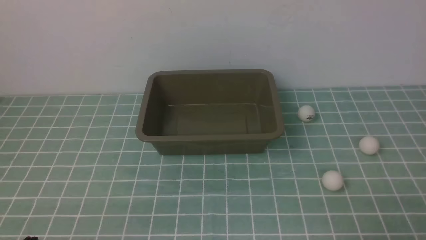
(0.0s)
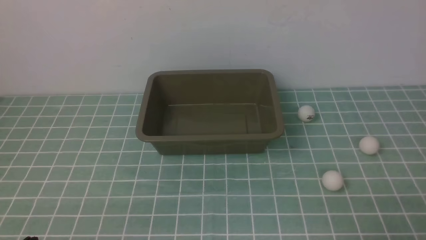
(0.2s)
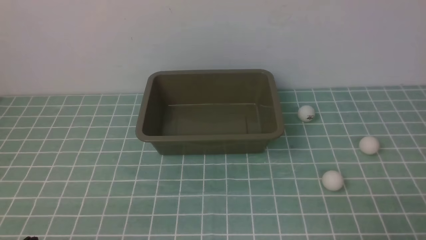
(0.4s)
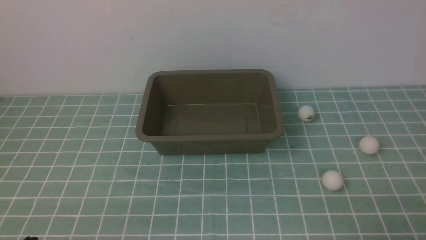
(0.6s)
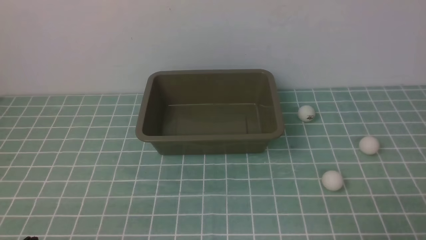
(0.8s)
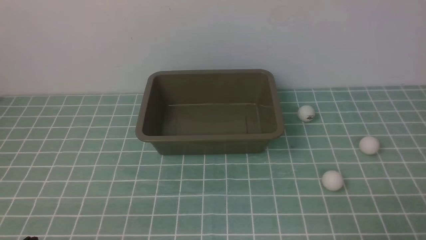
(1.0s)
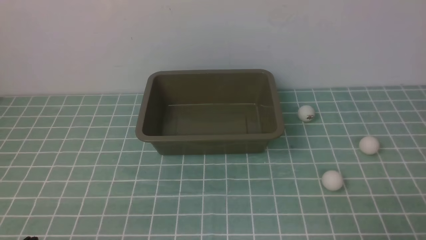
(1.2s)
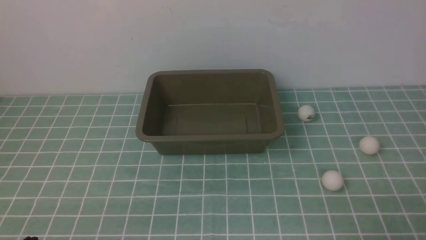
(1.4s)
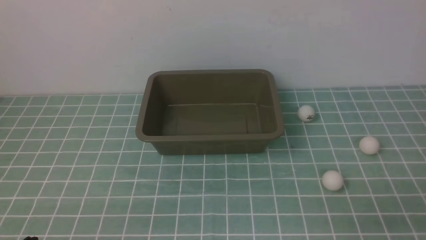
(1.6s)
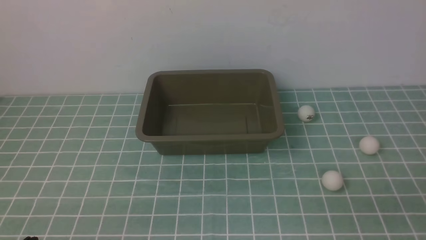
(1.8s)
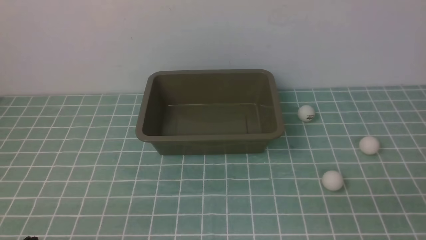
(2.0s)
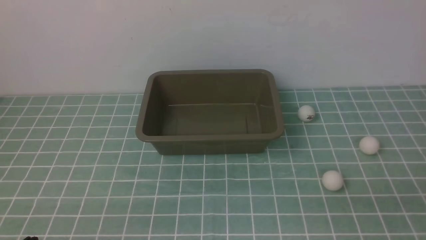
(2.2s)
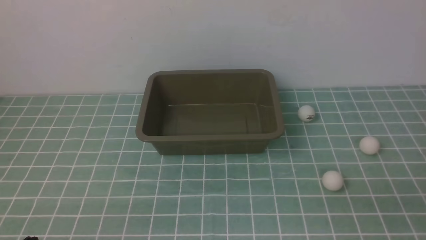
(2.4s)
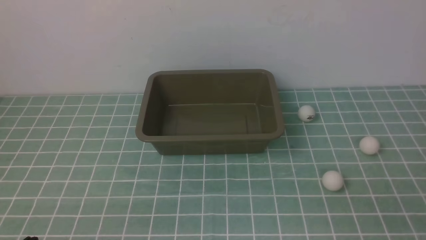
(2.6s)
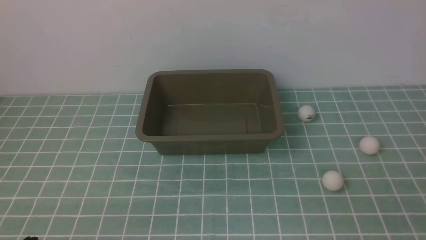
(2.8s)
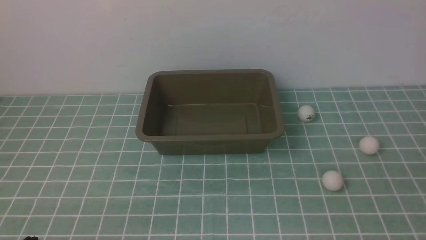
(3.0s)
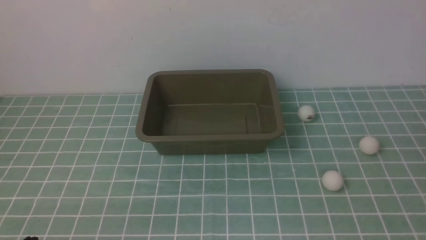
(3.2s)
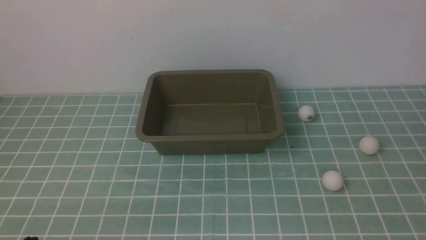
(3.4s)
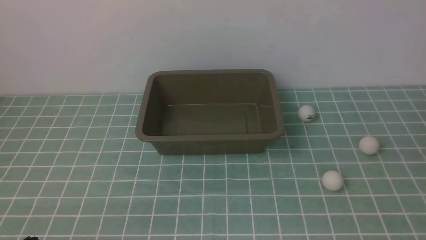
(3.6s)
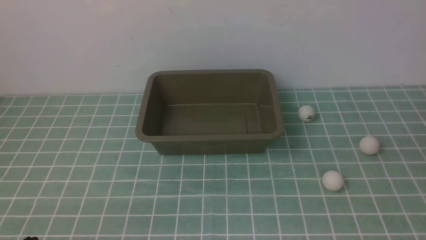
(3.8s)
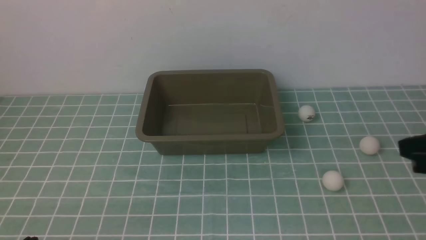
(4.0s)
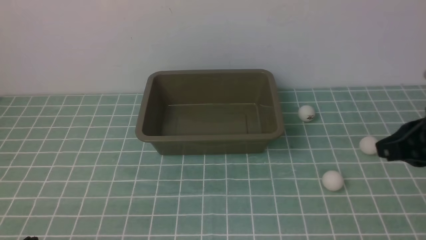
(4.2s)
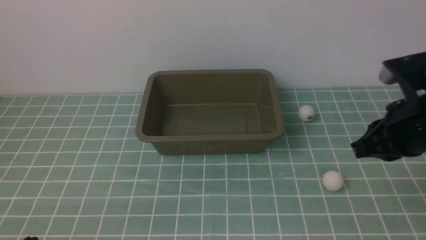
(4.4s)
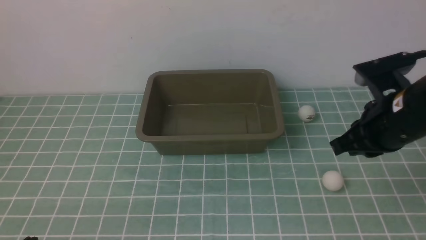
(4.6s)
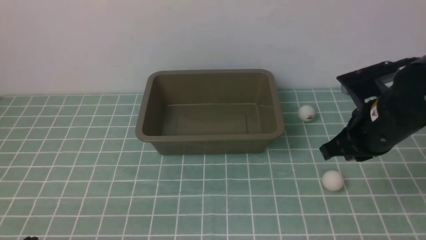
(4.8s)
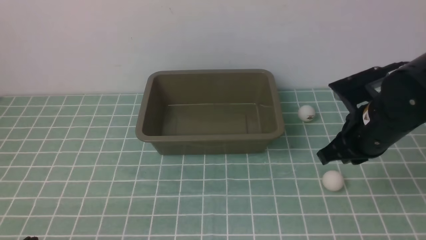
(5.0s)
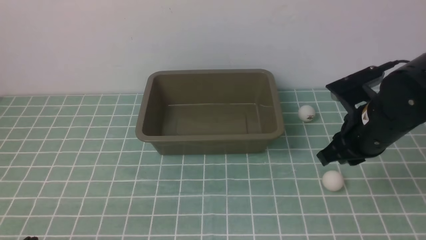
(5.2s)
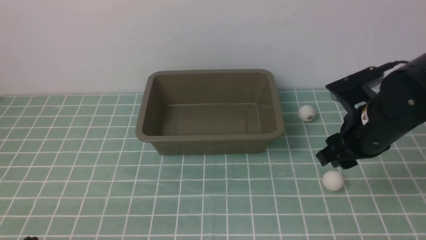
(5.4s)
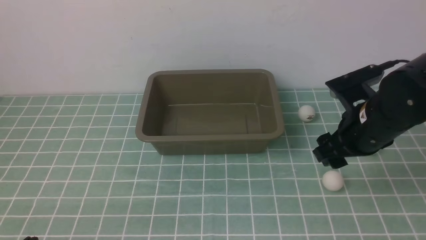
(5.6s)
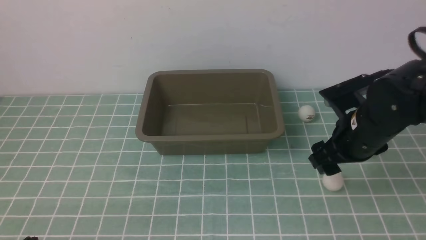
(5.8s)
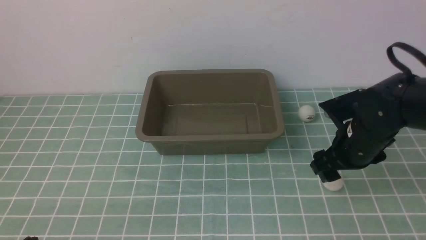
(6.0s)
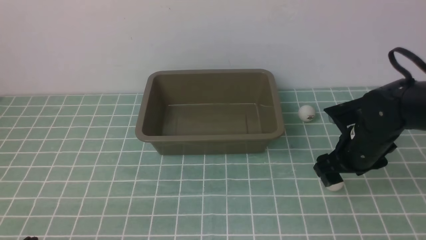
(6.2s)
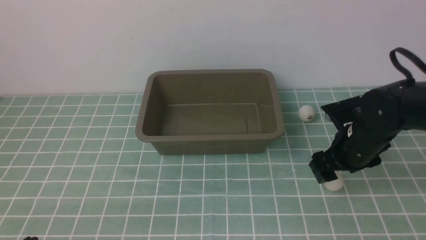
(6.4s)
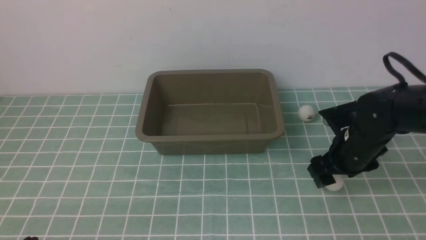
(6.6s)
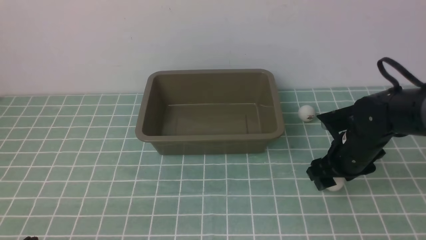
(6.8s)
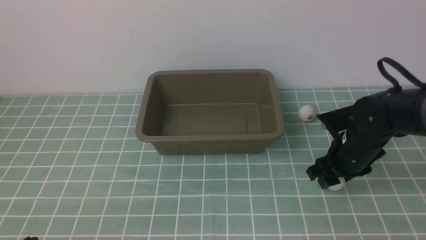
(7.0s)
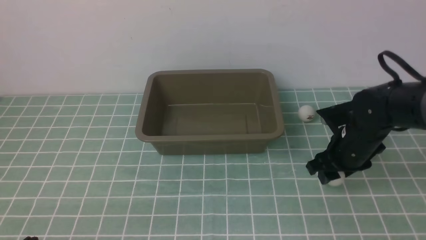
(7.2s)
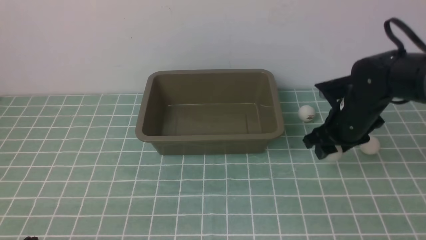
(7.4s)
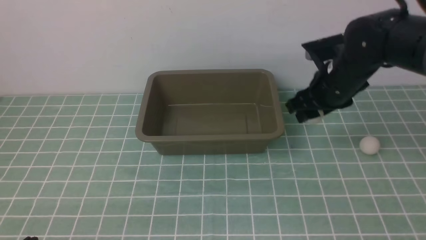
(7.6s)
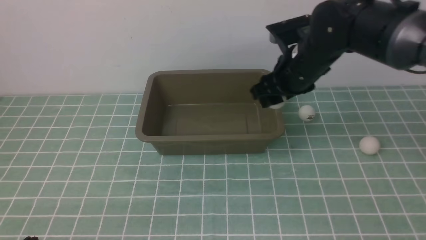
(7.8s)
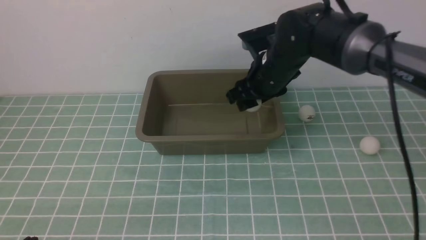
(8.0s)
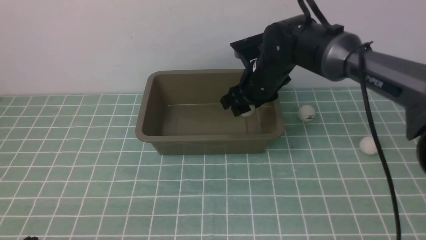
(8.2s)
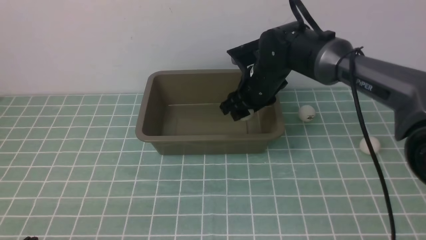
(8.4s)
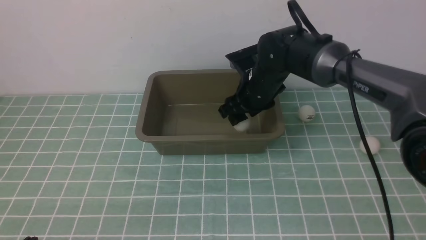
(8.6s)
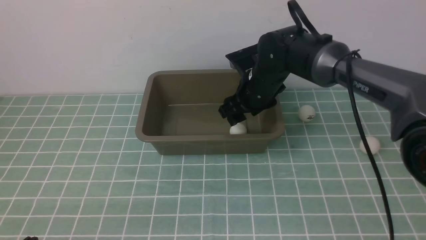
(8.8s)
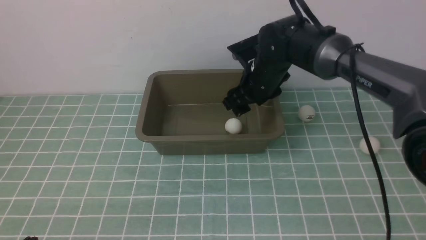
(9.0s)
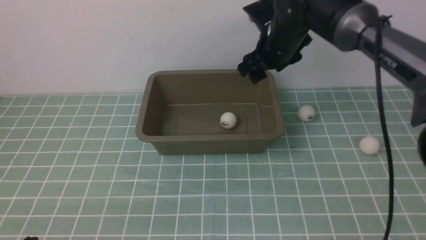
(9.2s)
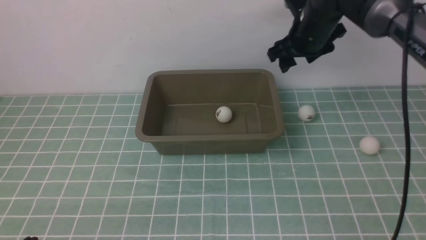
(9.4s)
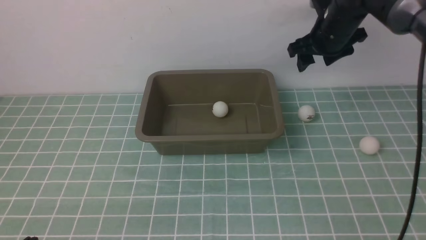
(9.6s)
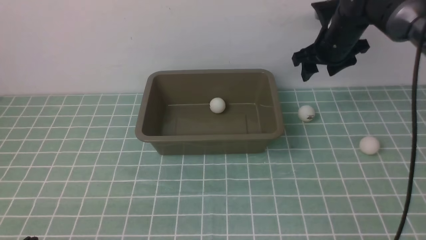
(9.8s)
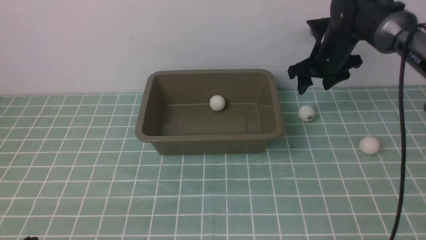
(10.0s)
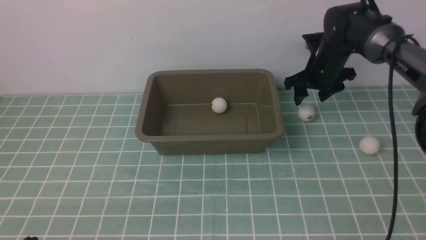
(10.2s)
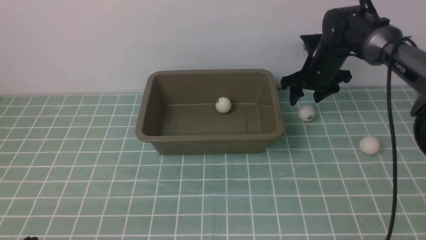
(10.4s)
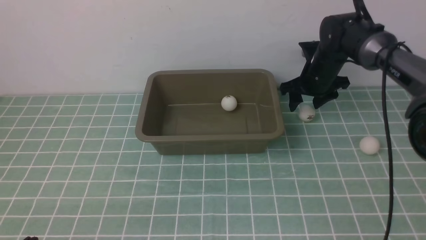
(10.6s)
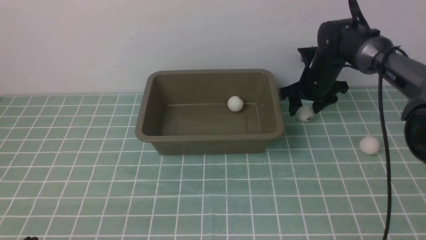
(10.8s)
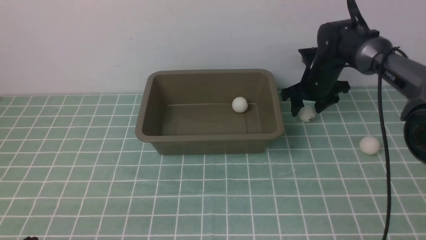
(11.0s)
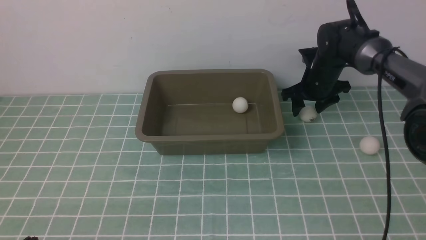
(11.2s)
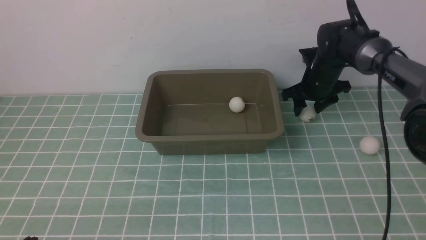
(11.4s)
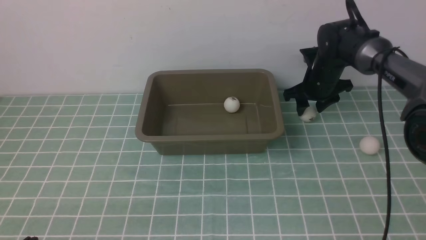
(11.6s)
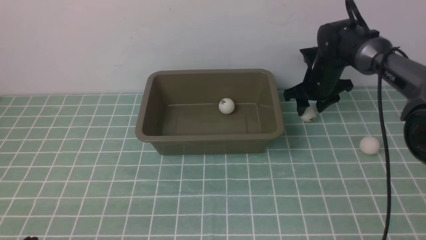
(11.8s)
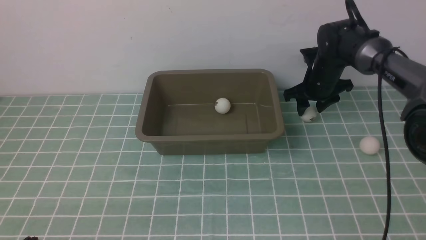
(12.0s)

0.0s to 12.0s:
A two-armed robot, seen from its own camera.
Step, 0.0s to 7.4s: use the right arm to clamp the table tennis ball closest to it.
Step, 7.6s to 8.8s: use the right arm to put the table tennis ball into the box.
3.0s to 4.4s: The right gripper shifts some 25 cm forward and to the left.
4.4s to 6.0s: The right gripper goes roughly 15 cm downward and forward, and opens its fingers.
6.0s to 7.6s: The right gripper goes approximately 15 cm upward, to the left and forward, and closes.
7.6s to 9.0s: The right gripper moves roughly 5 cm.
9.0s to 10.4s: The right gripper goes roughly 15 cm to the right, forward and downward.
10.4s to 12.0s: There are only small adjustments of the grippers.

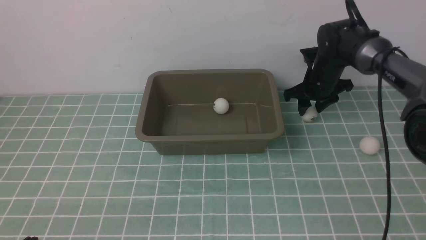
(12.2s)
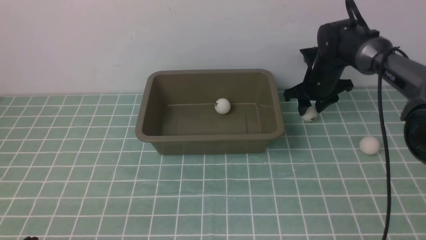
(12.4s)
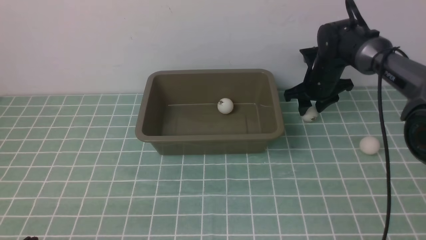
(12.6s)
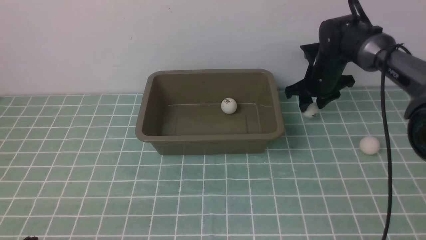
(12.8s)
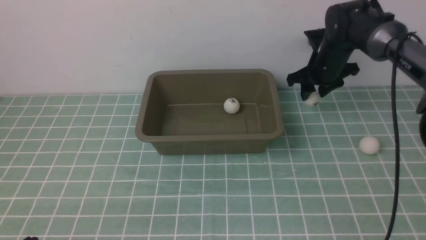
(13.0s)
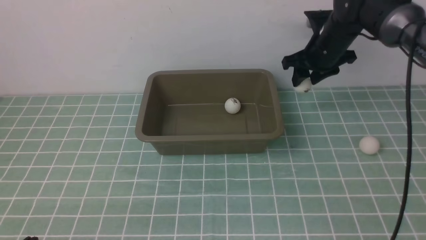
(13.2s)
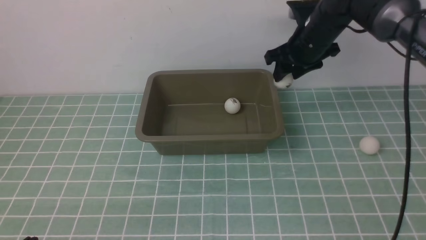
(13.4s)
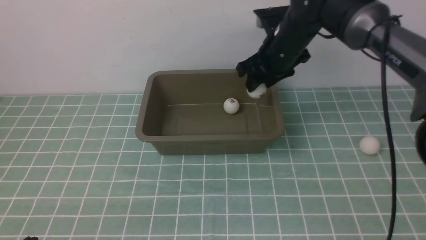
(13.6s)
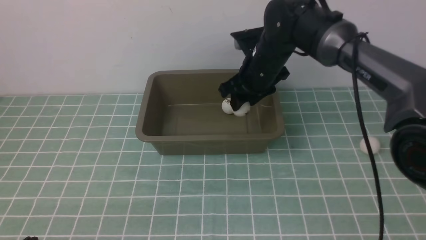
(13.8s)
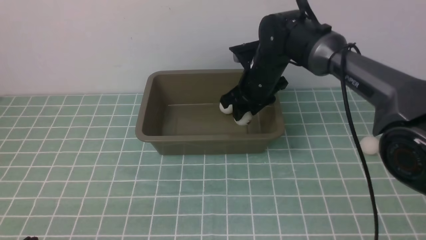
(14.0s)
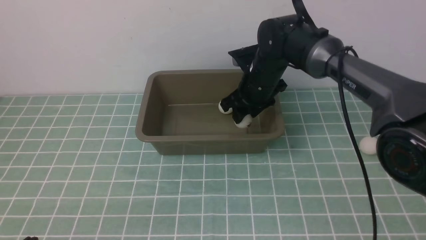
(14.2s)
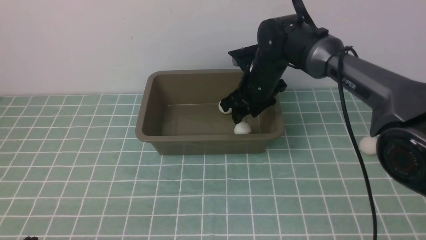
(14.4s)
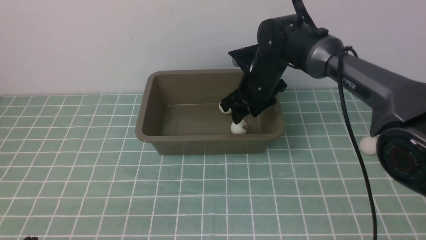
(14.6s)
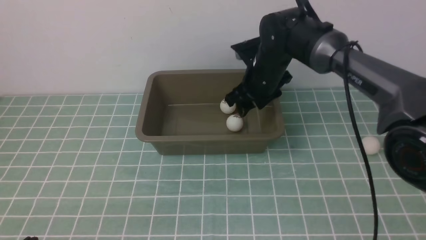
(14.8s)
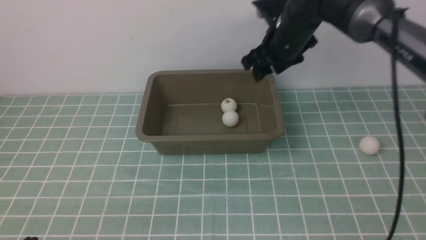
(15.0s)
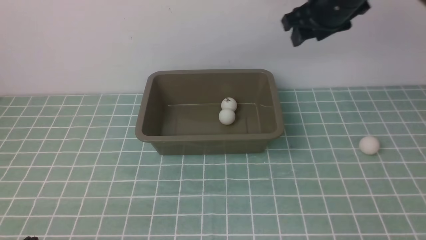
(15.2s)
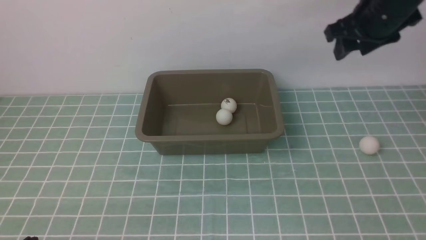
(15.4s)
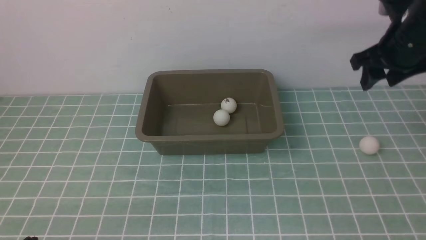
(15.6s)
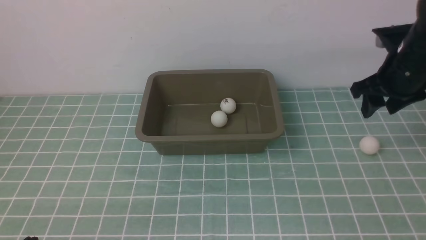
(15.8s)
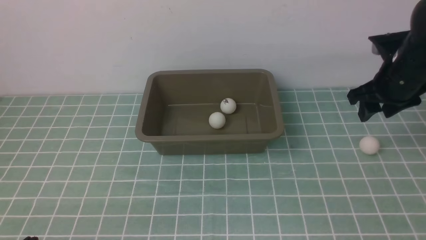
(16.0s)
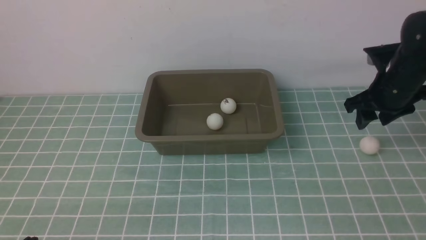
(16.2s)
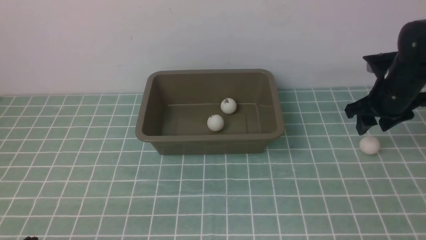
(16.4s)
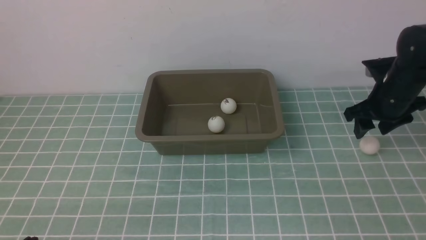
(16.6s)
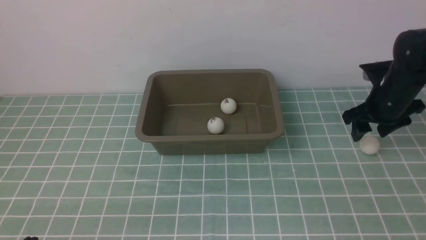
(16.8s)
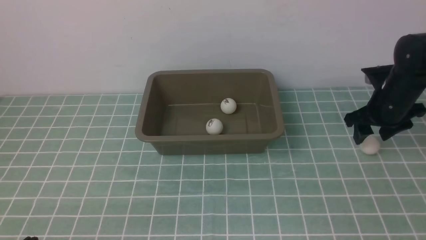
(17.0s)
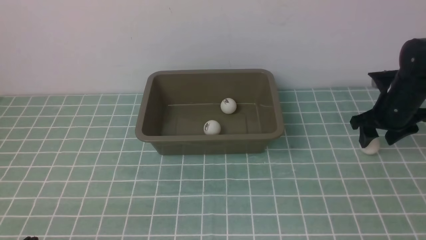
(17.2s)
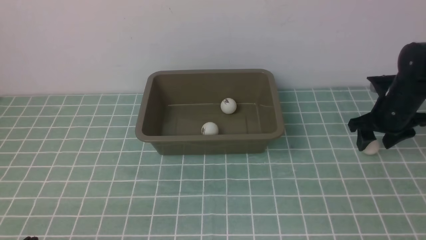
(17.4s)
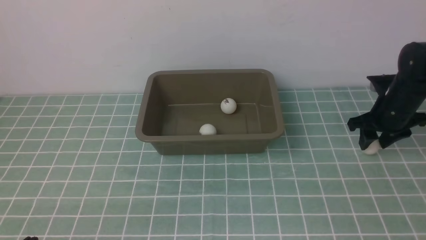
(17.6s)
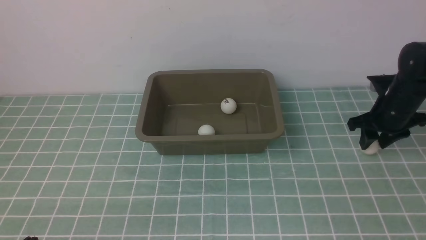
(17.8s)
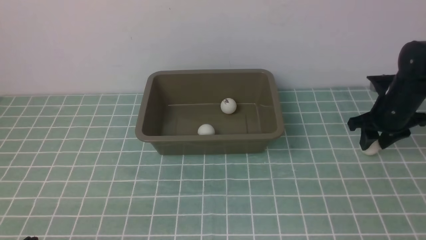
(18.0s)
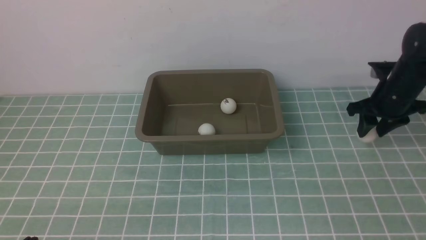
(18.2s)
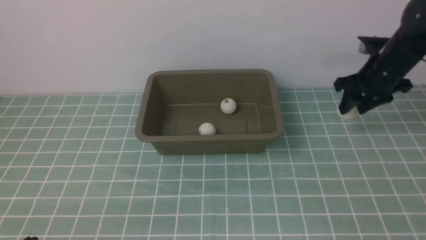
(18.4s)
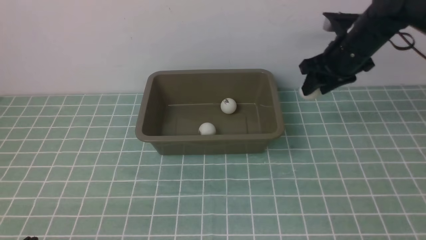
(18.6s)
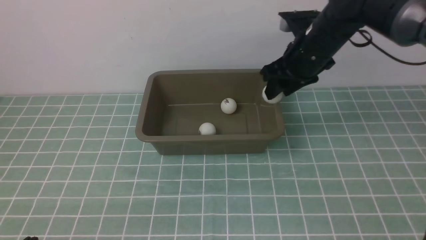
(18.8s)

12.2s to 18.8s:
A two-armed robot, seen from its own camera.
Step, 13.2s to 14.8s: use the right arm to put the table tennis ball into the box.
Step, 15.0s to 18.2s: use the right arm to clamp the table tennis ball closest to it.
12.2s to 13.8s: The right gripper is displaced to the left, upward and backward by roughly 15 cm.
13.8s to 15.4s: The right gripper goes approximately 20 cm to the right.
15.4s to 17.2s: The right gripper shifts some 15 cm downward.
17.2s to 18.8s: The right gripper moves to the left and upward, some 20 cm.
